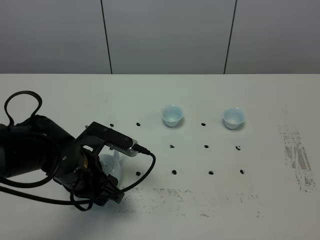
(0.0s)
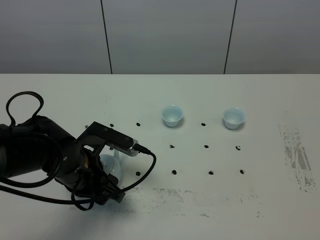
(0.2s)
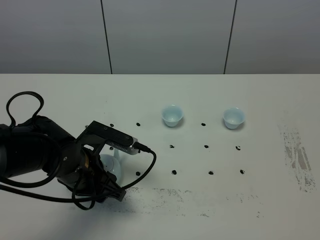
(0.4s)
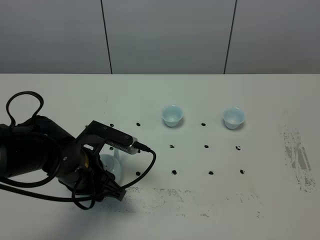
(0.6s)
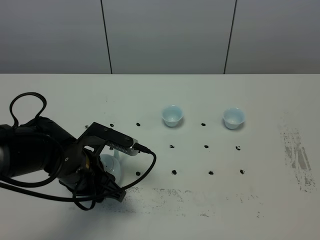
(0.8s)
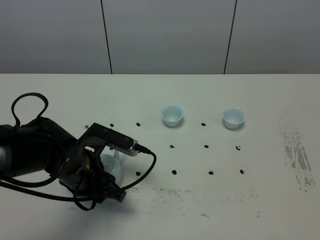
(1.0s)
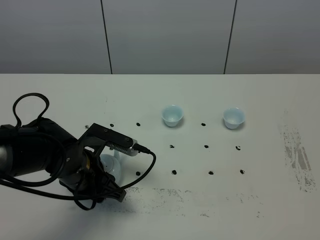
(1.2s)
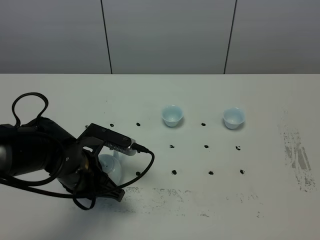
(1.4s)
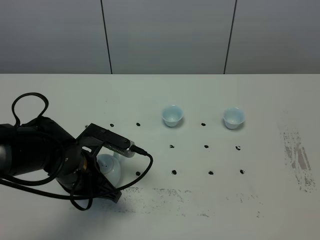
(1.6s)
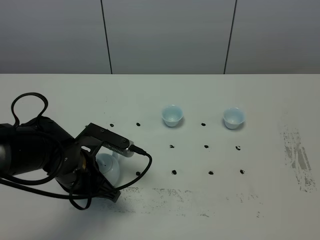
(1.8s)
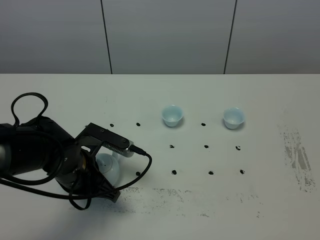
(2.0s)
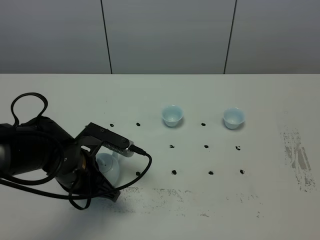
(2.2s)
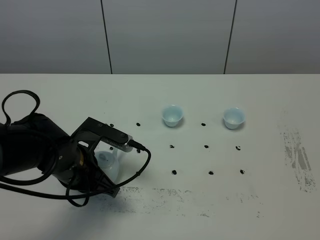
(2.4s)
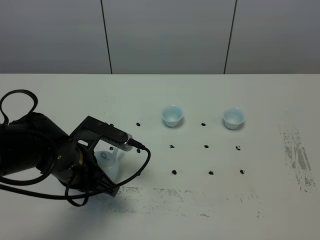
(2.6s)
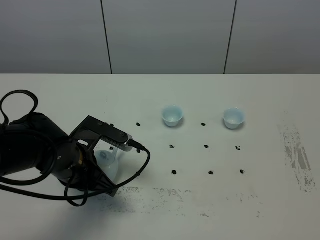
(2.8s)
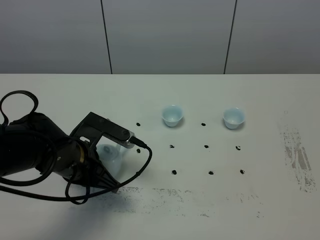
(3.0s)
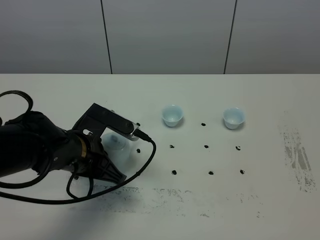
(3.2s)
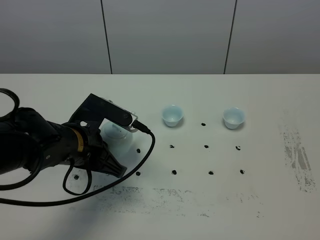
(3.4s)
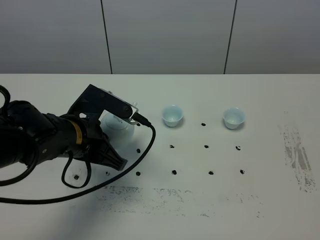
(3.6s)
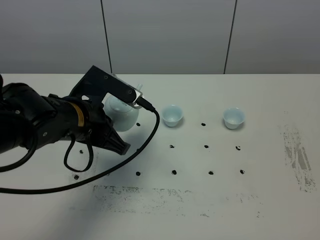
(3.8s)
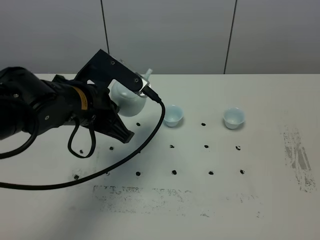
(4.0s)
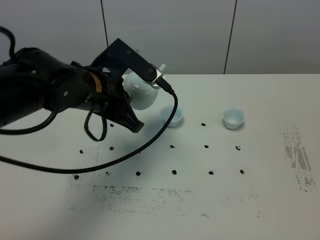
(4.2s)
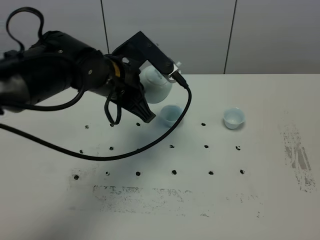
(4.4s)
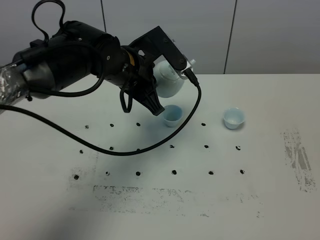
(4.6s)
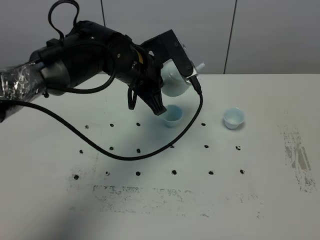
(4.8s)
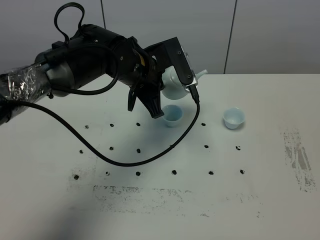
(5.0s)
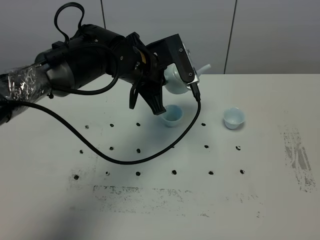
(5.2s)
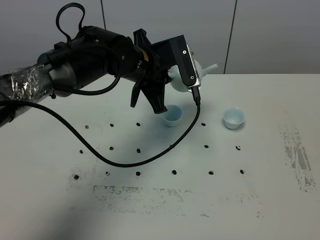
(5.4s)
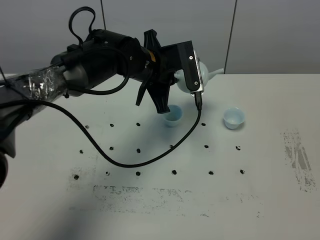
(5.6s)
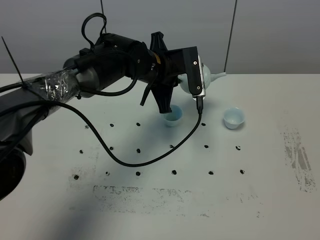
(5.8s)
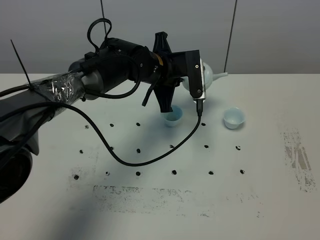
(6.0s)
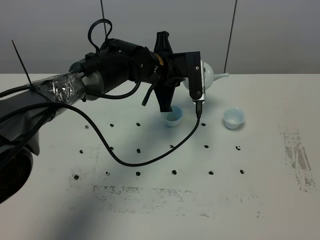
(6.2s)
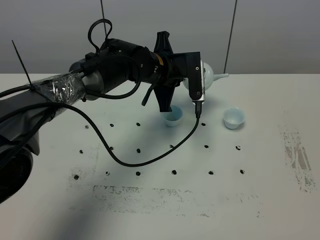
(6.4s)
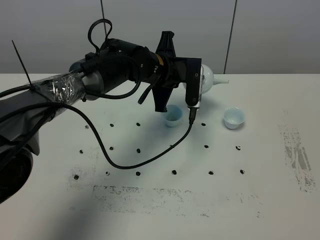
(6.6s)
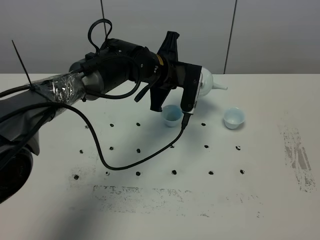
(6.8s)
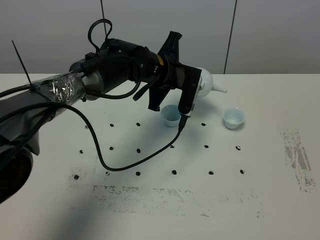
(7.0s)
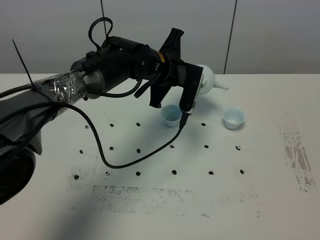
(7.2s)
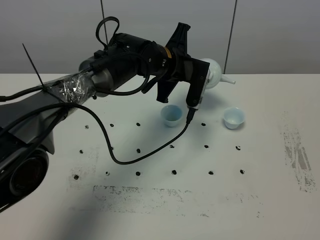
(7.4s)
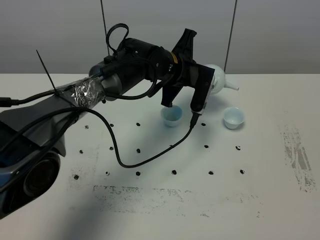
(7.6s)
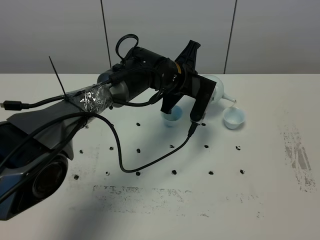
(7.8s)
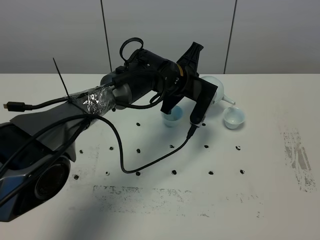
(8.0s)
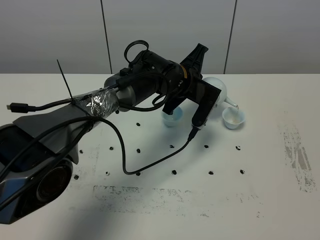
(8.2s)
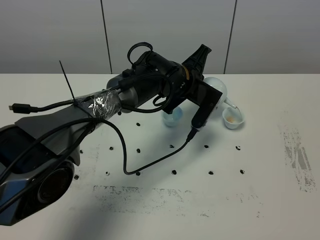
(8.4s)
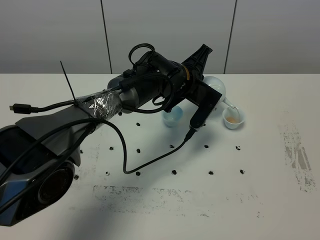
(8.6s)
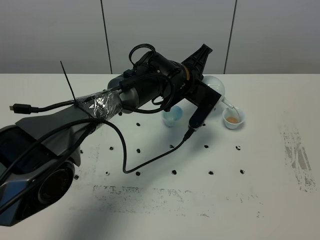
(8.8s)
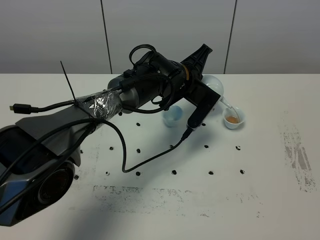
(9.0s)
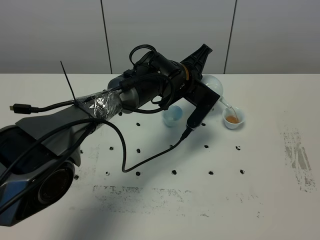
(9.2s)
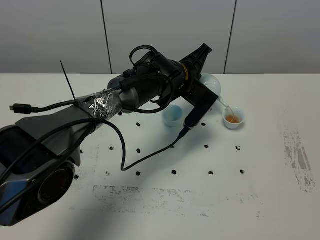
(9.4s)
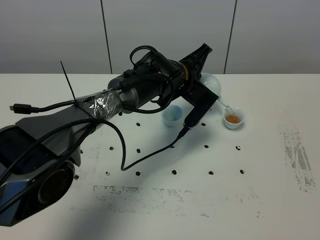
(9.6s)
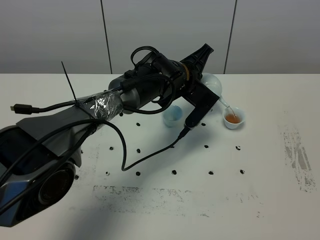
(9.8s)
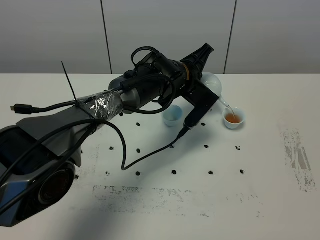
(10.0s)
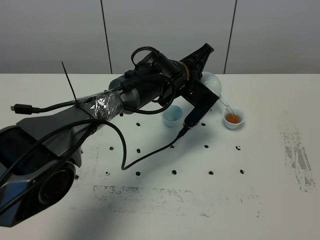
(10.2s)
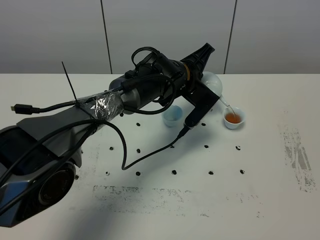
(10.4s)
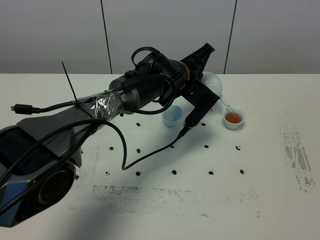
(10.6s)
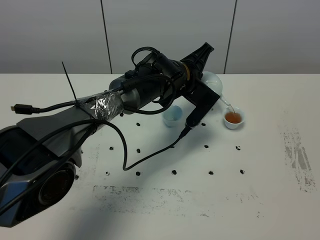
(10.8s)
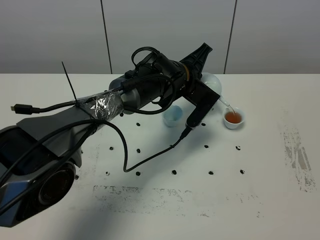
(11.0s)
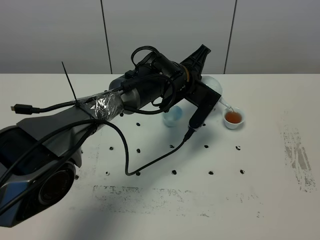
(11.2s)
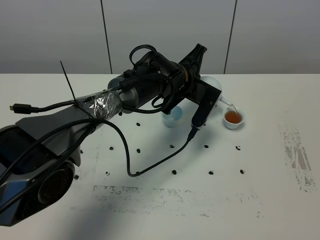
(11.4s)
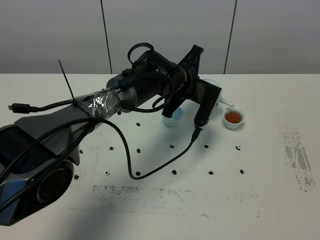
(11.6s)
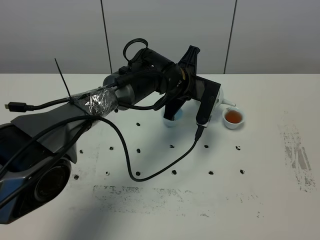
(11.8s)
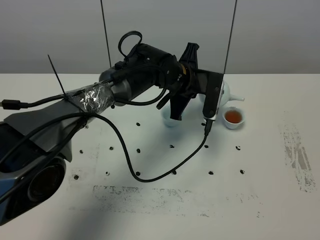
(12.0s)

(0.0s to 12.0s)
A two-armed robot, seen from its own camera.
Task of the whole recording: grasp the blue porcelain teapot and pour the tea into the two blue porcelain teacups one by one, put the blue porcelain teapot back in its original place.
Step, 0.0s - 3.2s: Pick up the teapot with the left gripper.
0.0s - 1.6s: The left gripper closes.
1.6s - 3.0s: The grippers move only a little.
3.0s - 4.4s: The left gripper goes some 15 cm upward, forward and to the right.
4.4s - 6.0s: The left gripper moves forward, to the right and downward, about 10 cm.
9.0s - 10.4s: The grippers move only a little.

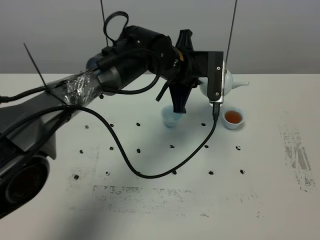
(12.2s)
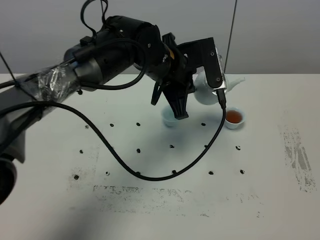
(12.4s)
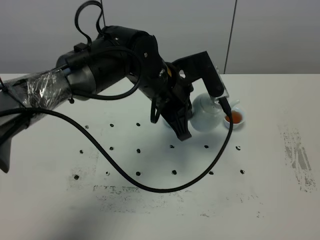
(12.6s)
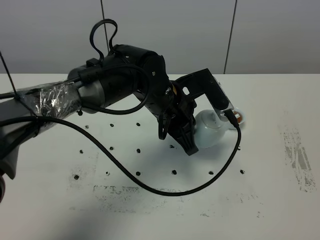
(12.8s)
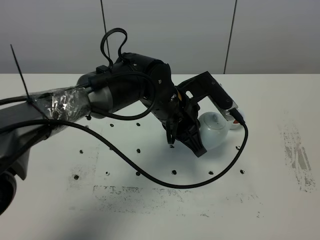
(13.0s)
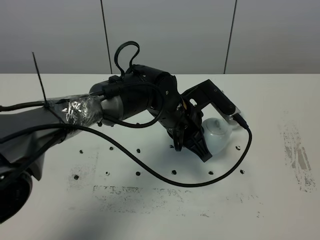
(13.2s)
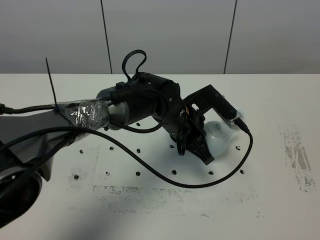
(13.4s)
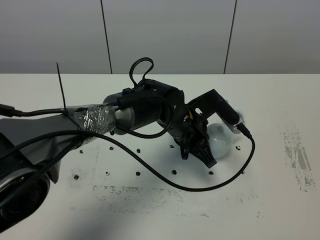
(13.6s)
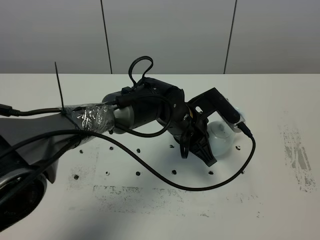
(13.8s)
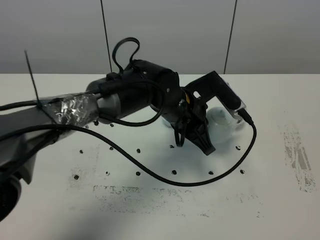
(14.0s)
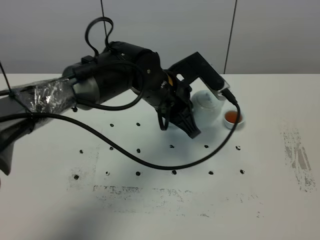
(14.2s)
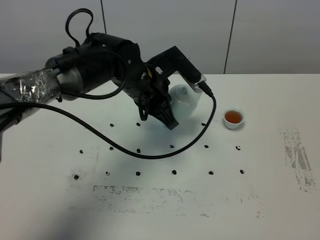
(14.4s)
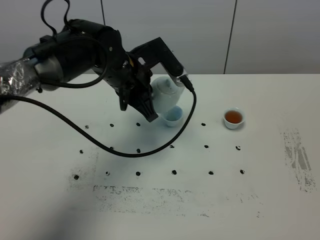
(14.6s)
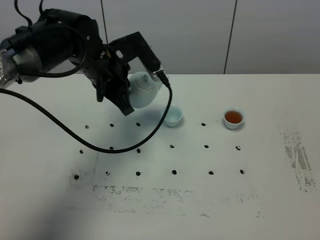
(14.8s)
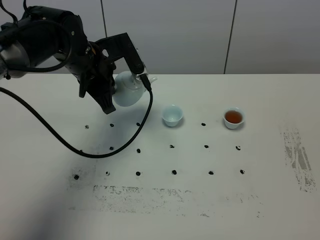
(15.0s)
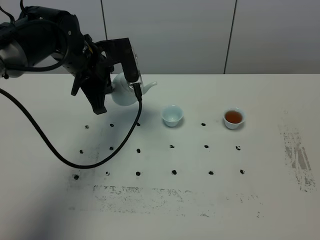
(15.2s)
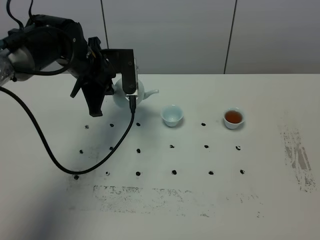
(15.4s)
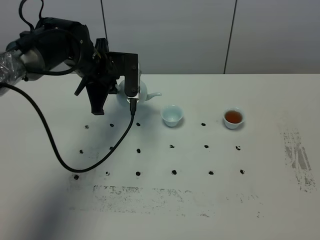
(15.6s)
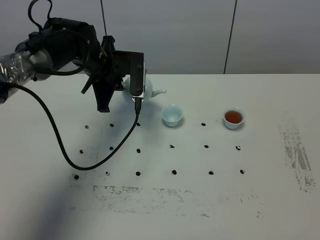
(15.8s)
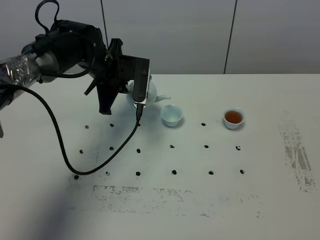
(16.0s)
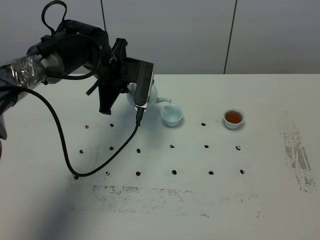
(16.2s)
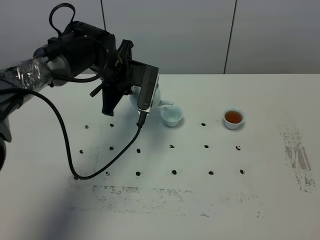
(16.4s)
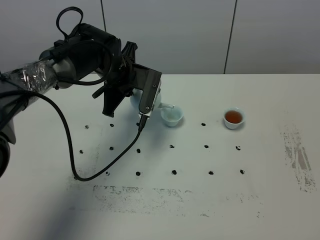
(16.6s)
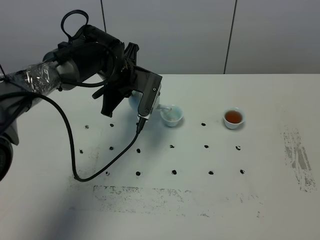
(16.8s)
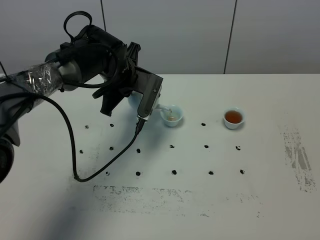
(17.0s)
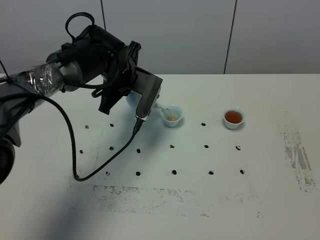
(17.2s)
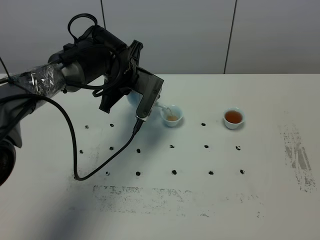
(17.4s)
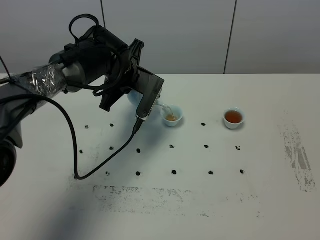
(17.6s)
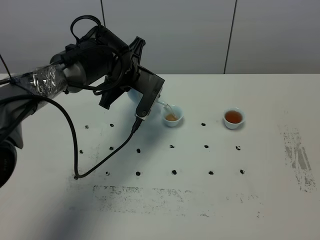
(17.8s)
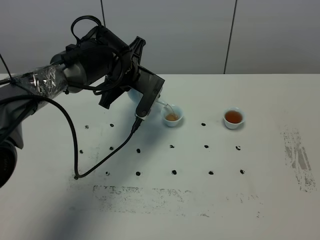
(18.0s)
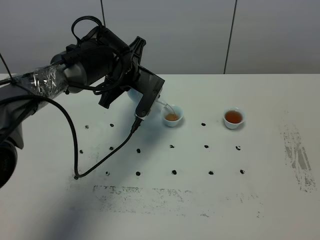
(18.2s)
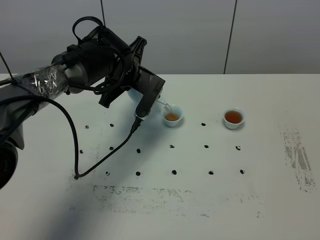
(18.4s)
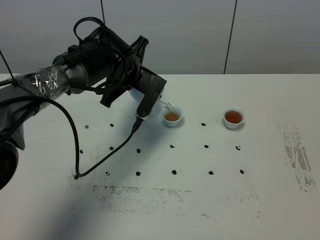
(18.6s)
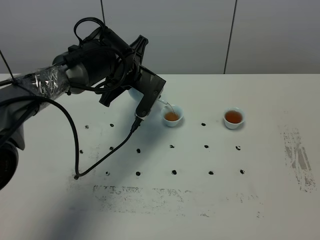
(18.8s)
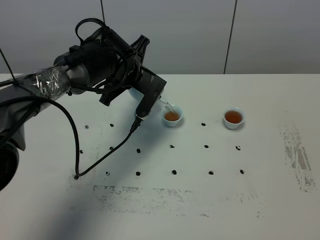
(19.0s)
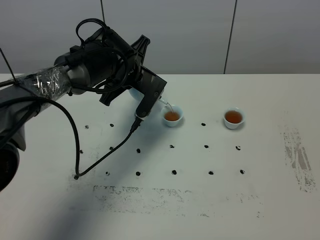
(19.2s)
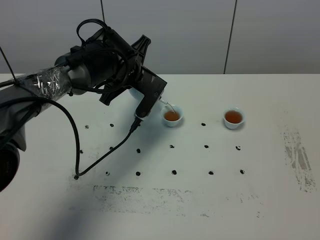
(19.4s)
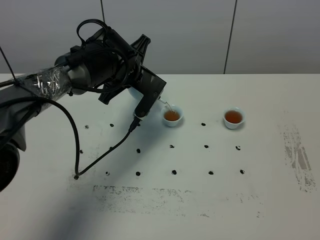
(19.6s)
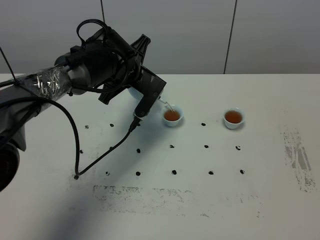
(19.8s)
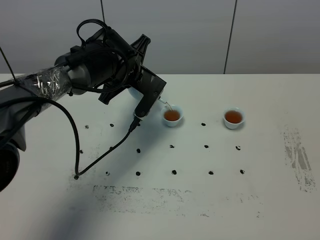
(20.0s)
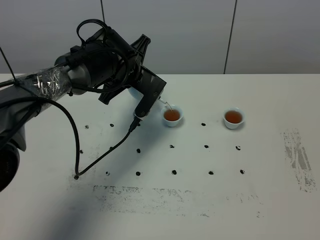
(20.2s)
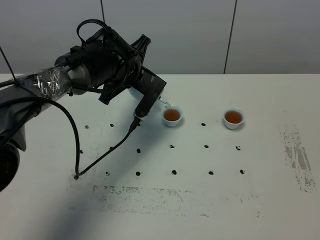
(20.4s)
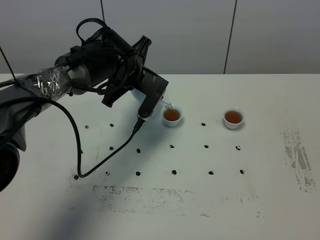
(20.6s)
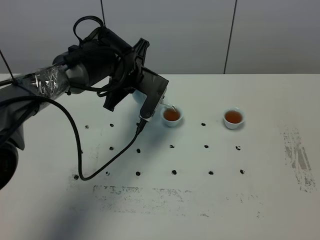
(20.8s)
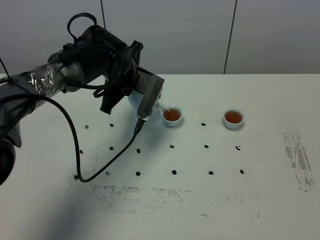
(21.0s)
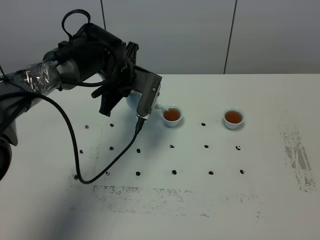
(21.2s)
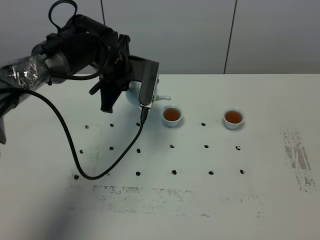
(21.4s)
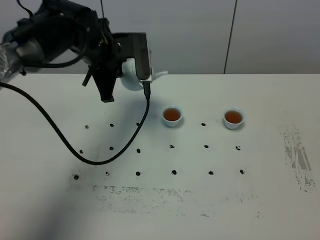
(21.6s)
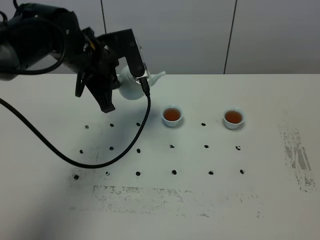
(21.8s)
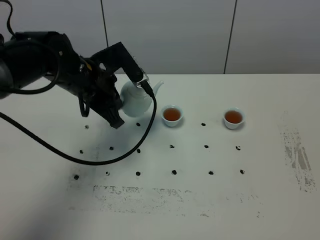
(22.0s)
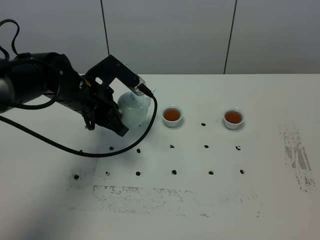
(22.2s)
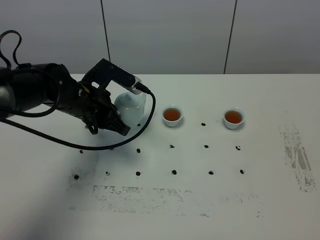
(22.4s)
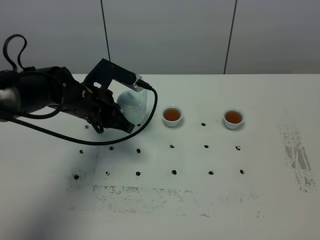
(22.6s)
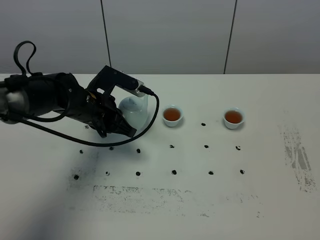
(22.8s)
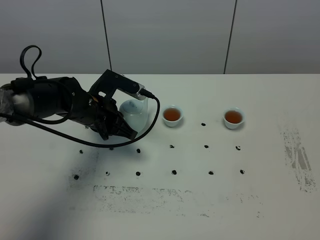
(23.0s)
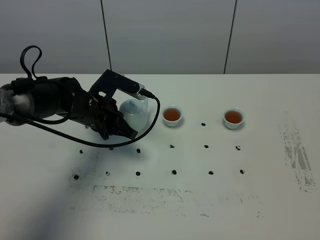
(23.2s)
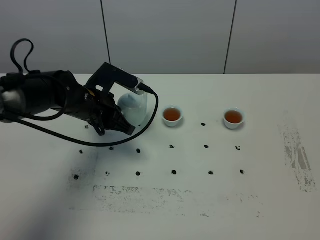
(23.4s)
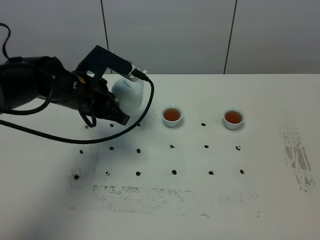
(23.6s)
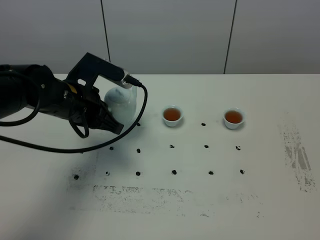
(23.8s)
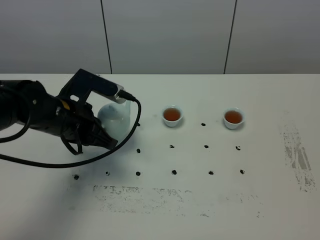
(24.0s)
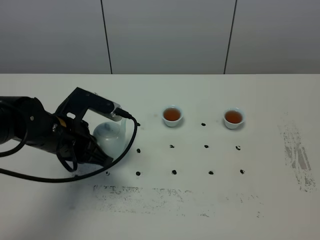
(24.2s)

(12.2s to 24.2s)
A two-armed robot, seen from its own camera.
Task of the whole recording: grasp the blue porcelain teapot and pour the tea into the two blue porcelain teacups one by one, put the blue porcelain teapot back in its original place.
Step, 12.2s - 21.4s: Pour tea into the teacup with the left gripper.
12.2s - 13.8s: The left gripper heads downward and backward, covering roughly 10 cm.
13.8s - 15.2s: The left gripper travels to the left and upward by about 20 cm.
15.2s - 16.6s: The left gripper shifts by some 5 cm.
16.6s - 18.2s: The grippers make only small movements.
18.2s - 21.2s: The grippers stay close to where they were, moving slightly.
21.2s - 22.6s: The left gripper moves backward and to the left, roughly 10 cm, and travels upward and back again, roughly 5 cm each way.
22.6s - 24.2s: The left gripper travels backward by some 10 cm.
